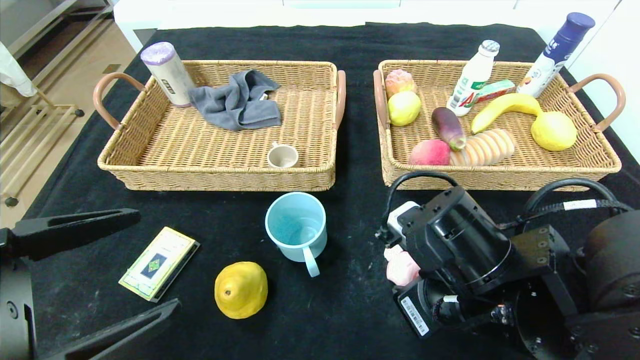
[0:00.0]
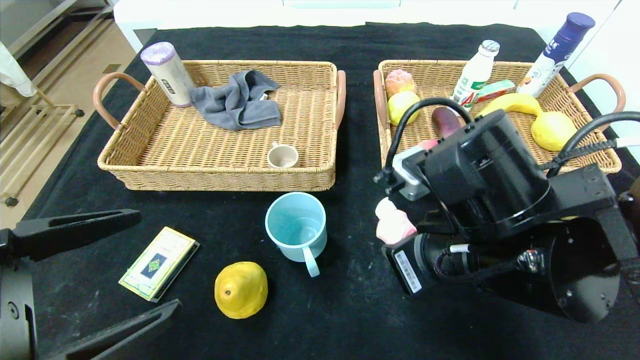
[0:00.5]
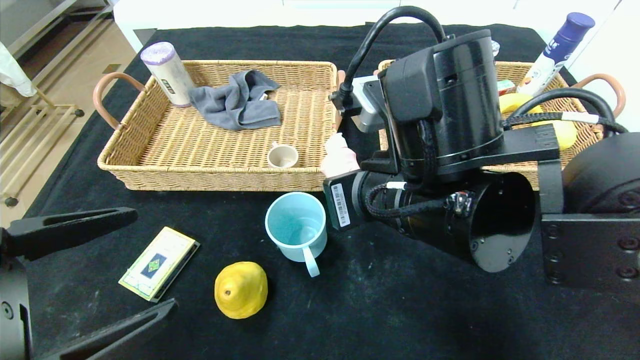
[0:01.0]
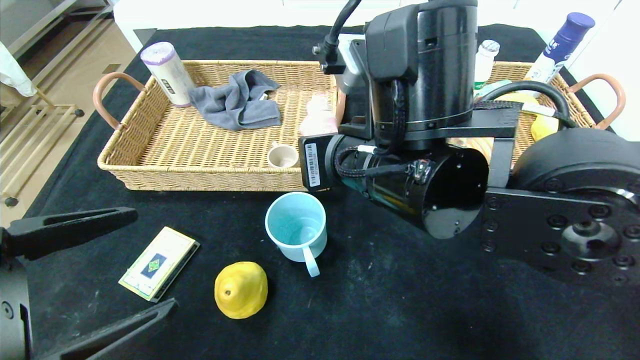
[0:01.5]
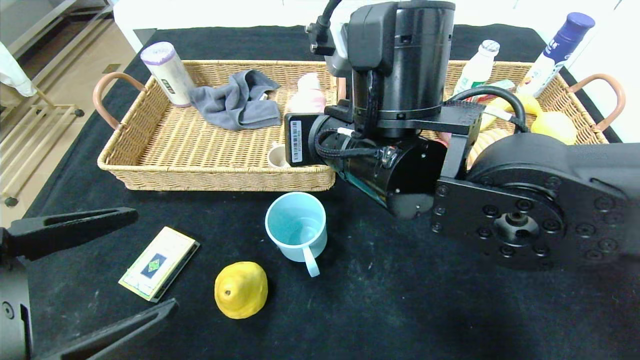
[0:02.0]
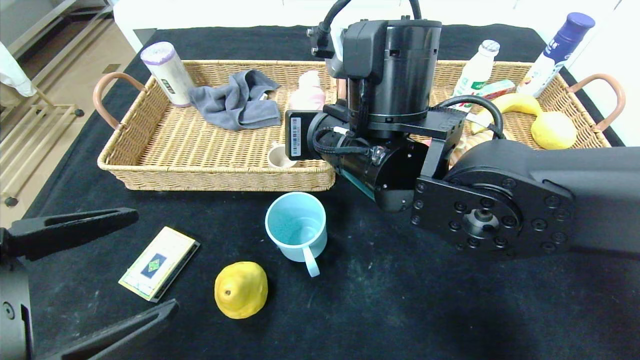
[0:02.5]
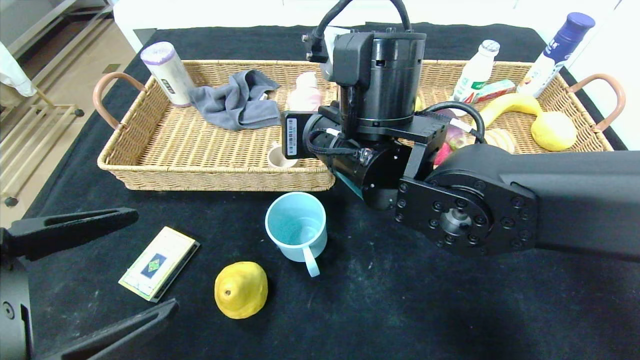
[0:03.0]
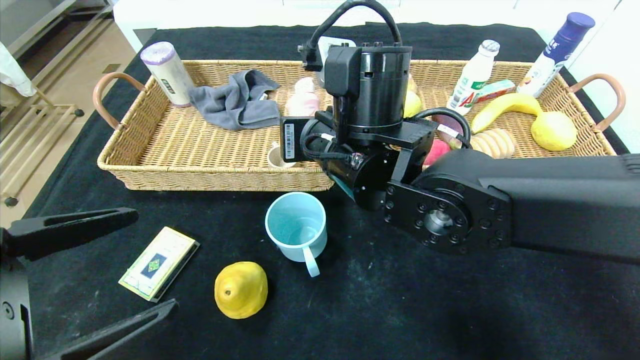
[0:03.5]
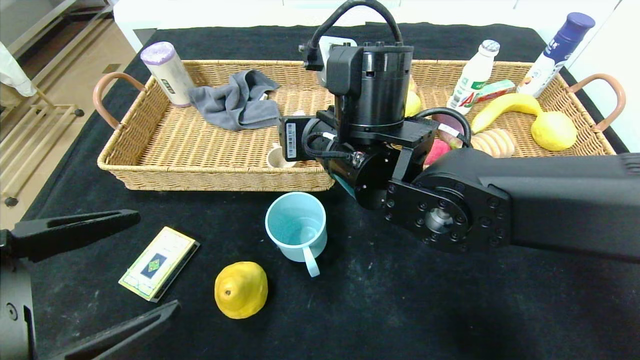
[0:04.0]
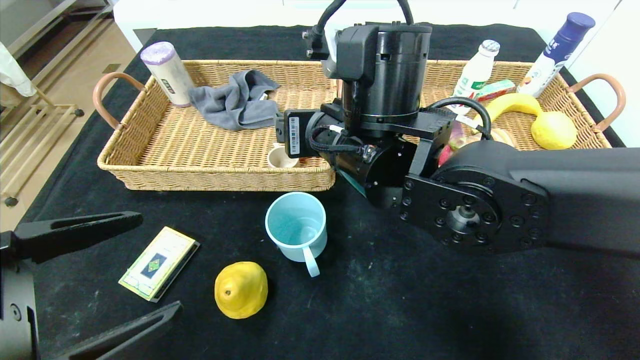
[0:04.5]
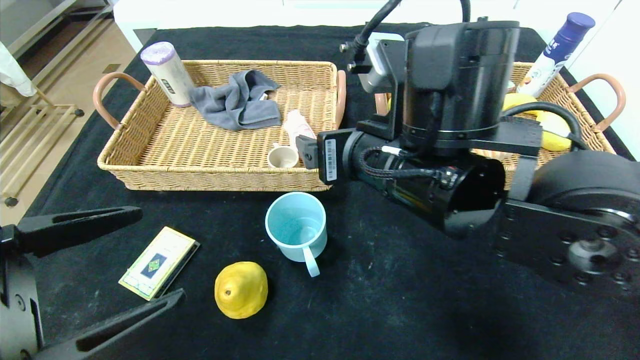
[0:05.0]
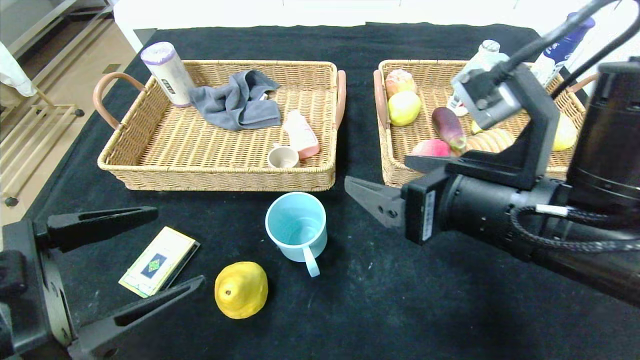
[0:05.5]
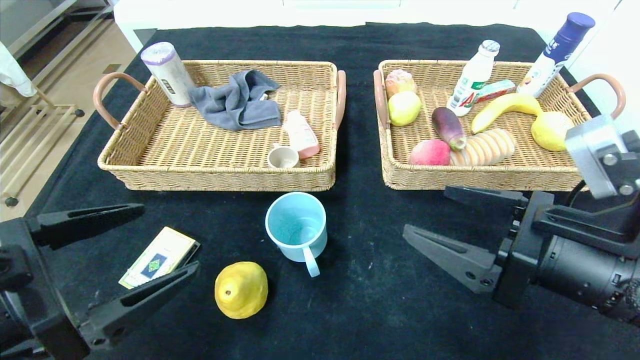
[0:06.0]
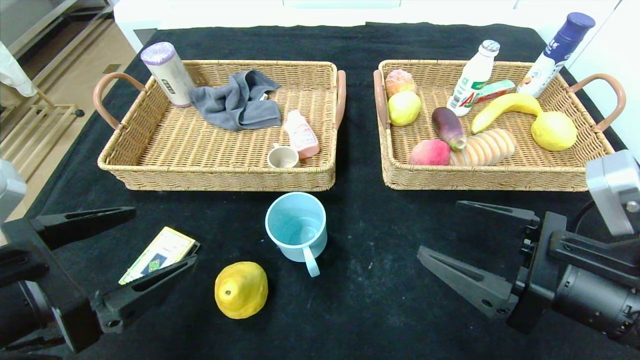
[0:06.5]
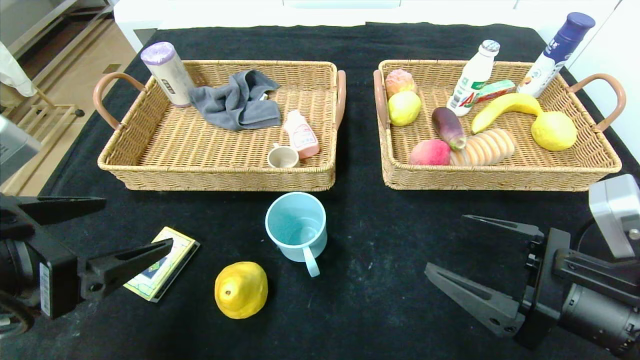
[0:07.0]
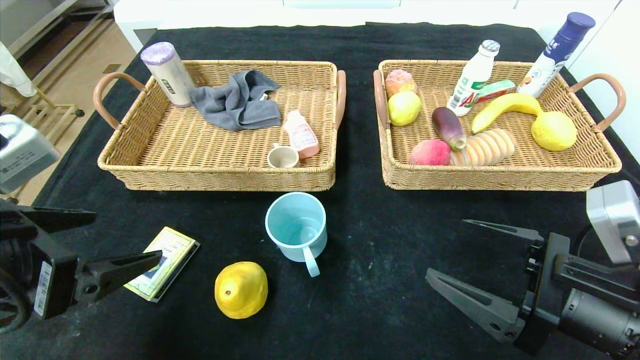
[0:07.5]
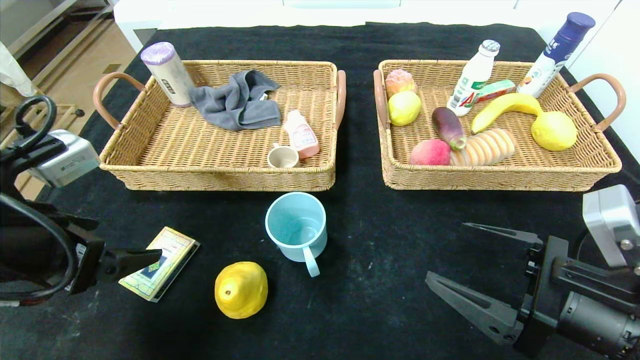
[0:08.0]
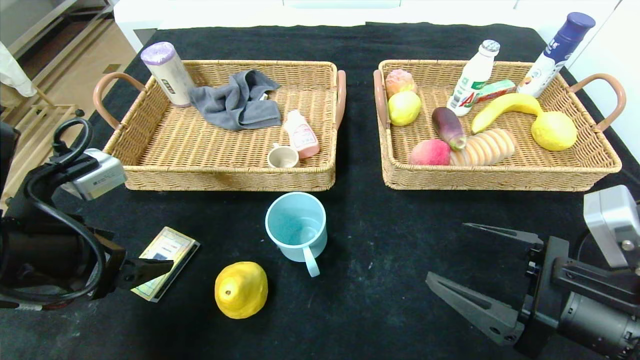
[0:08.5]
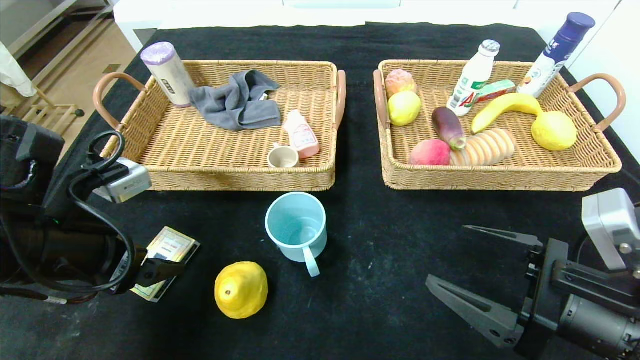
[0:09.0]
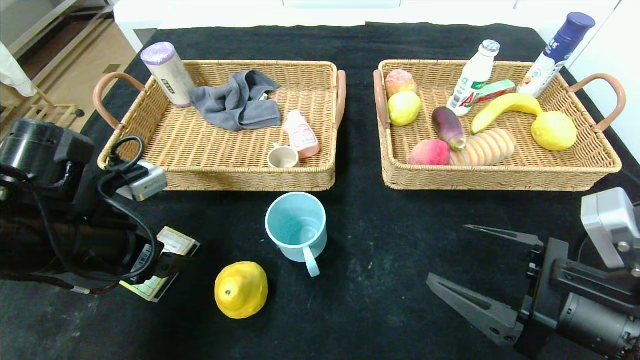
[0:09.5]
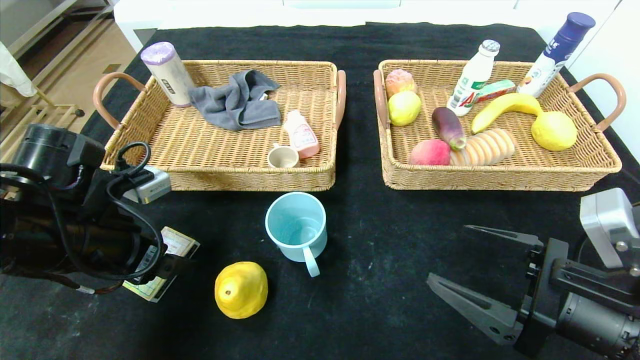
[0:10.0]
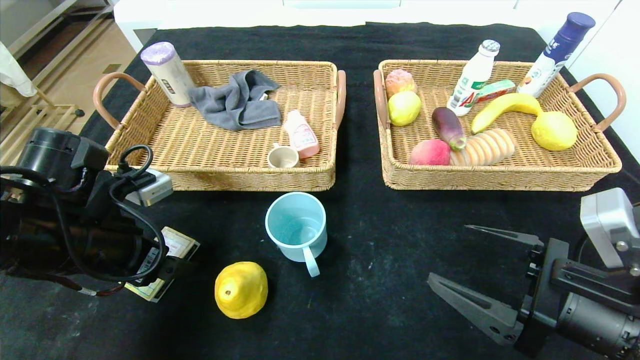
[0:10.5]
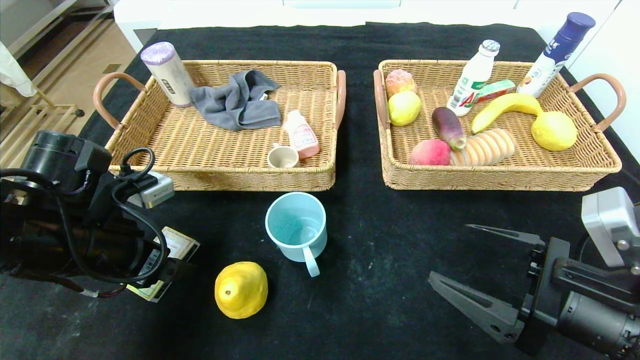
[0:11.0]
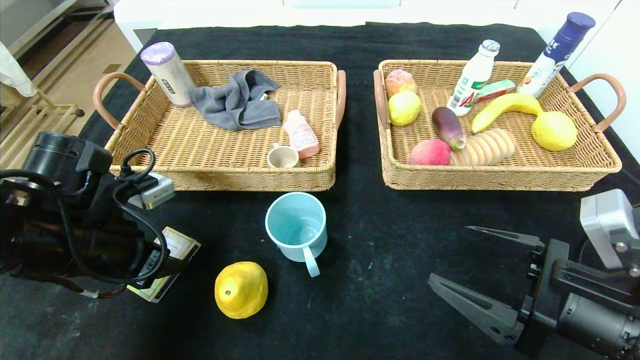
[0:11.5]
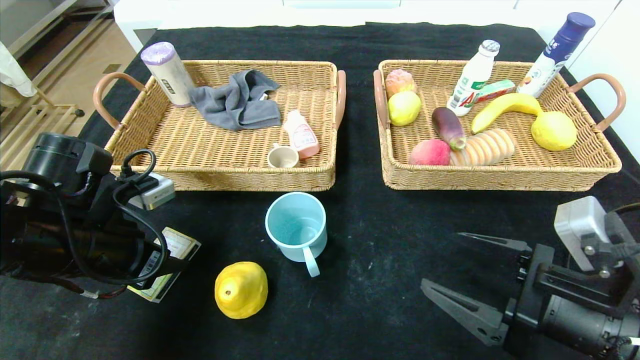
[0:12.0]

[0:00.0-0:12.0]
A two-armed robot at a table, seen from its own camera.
0:00.0 to 0:02.0: The right gripper travels upward, to the left and forward by roughly 15 cm.
0:02.0 to 0:04.0: The right gripper opens up.
0:04.0 to 0:06.0: The right gripper moves to the right and backward, about 25 cm, and opens.
0:06.0 to 0:08.0: The right gripper changes place by approximately 5 cm, while the left gripper is displaced forward by approximately 5 cm.
0:08.0 to 0:10.0: The left gripper goes some 5 cm forward.
0:10.0 to 0:12.0: The left gripper closes.

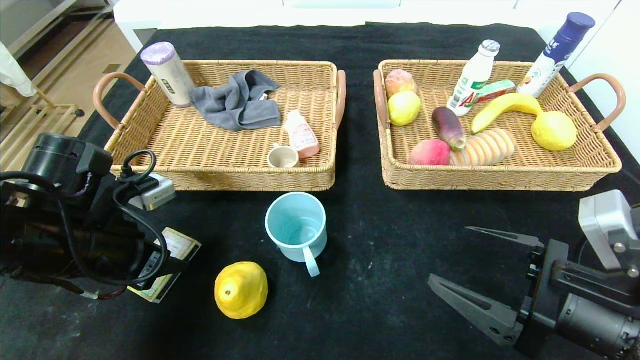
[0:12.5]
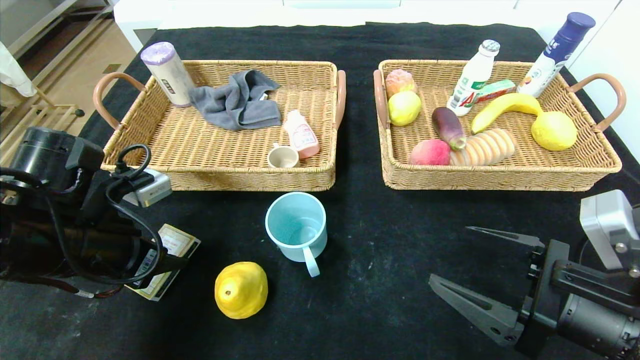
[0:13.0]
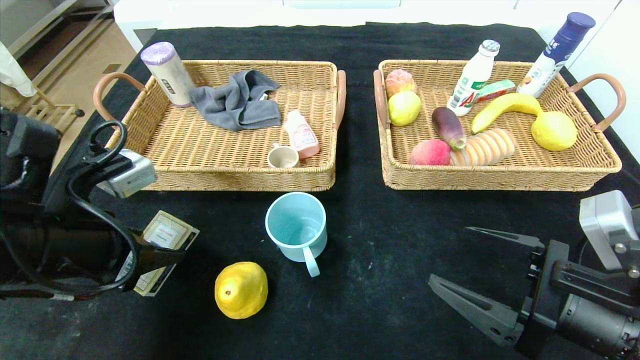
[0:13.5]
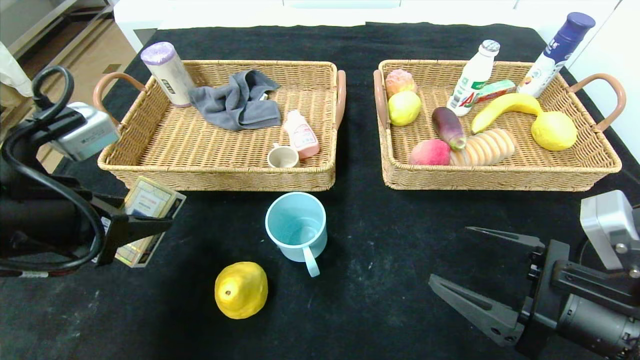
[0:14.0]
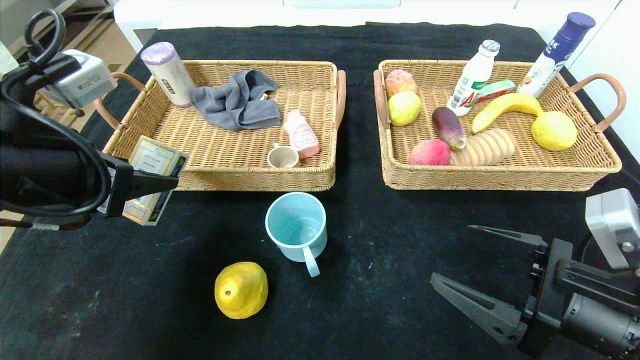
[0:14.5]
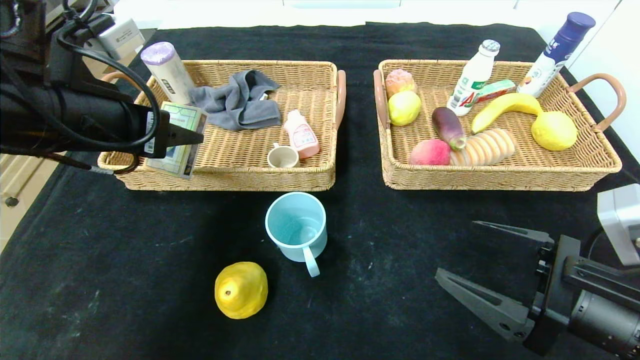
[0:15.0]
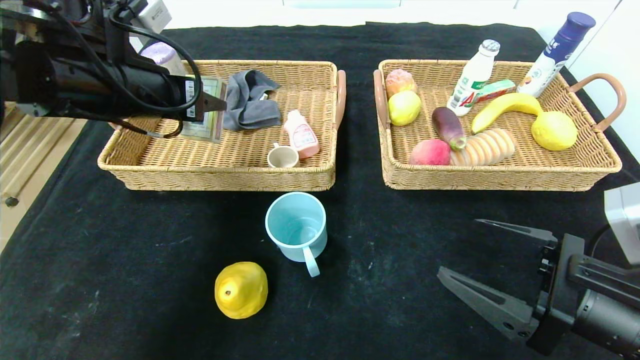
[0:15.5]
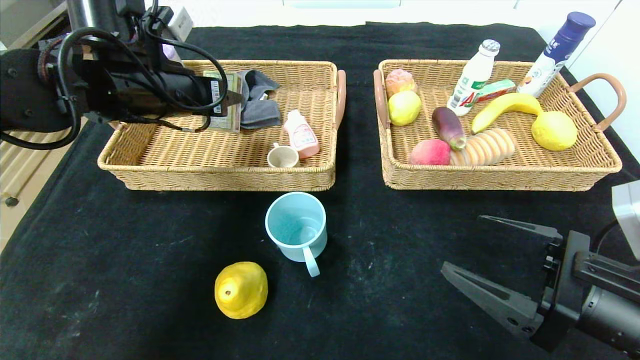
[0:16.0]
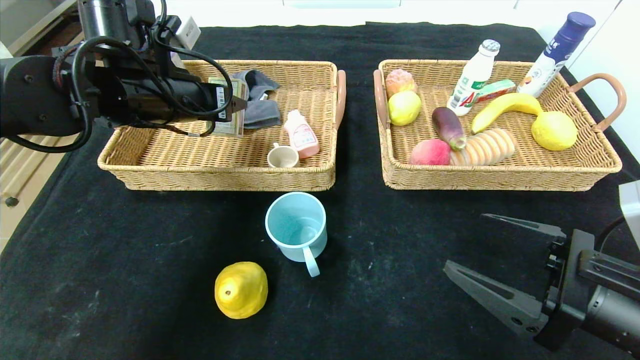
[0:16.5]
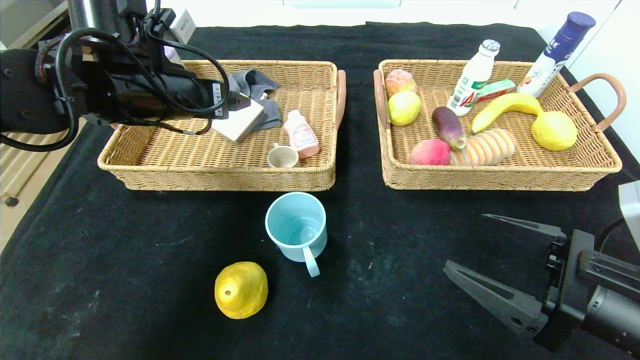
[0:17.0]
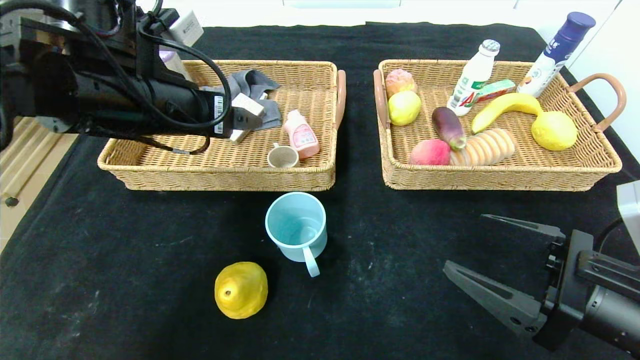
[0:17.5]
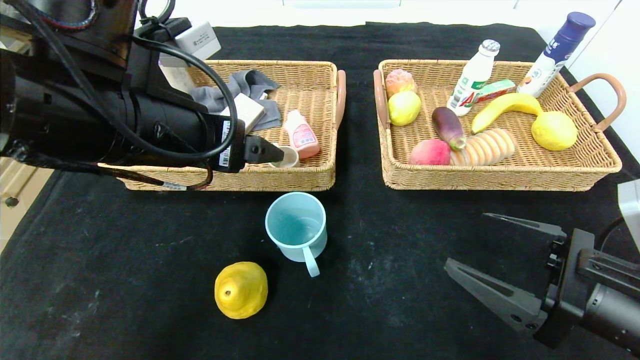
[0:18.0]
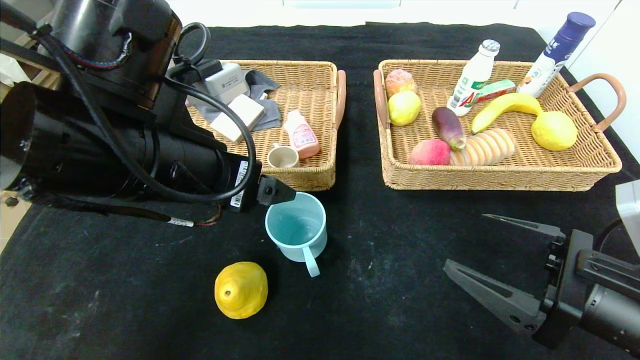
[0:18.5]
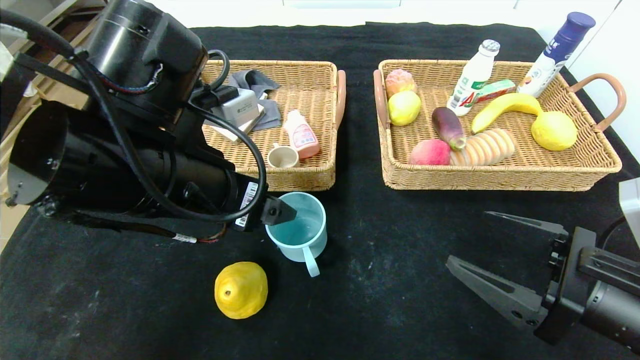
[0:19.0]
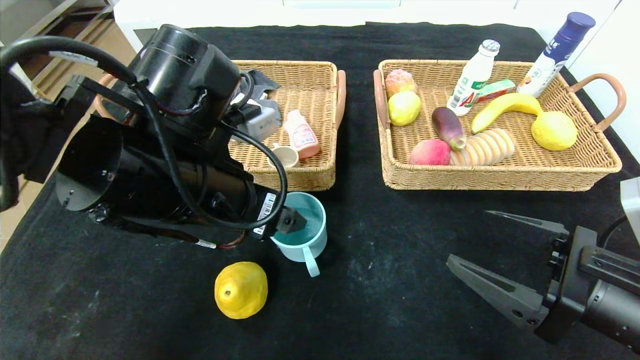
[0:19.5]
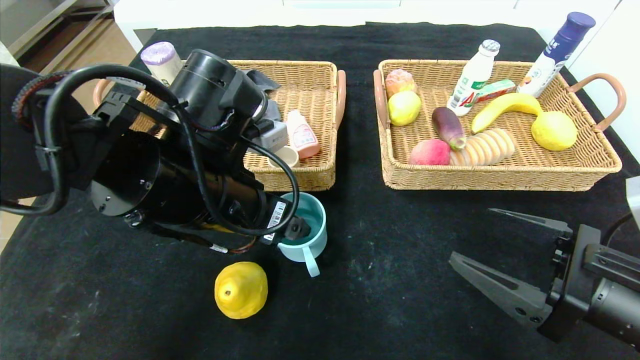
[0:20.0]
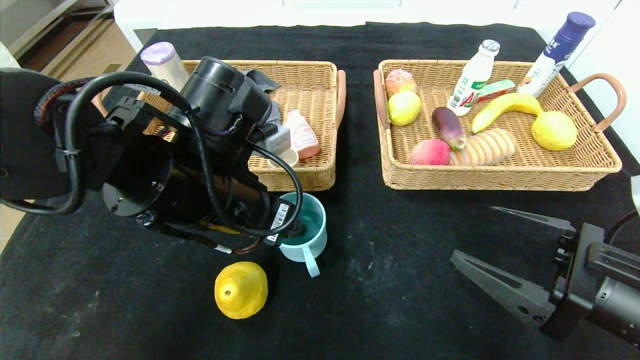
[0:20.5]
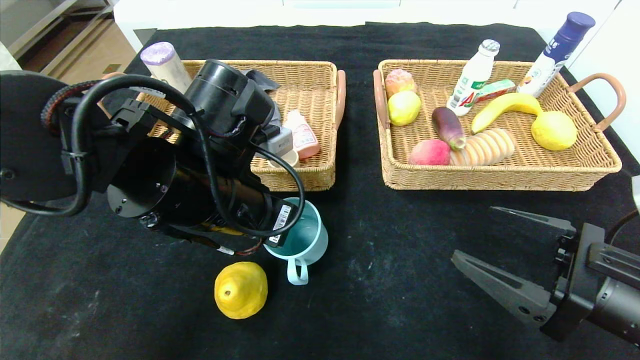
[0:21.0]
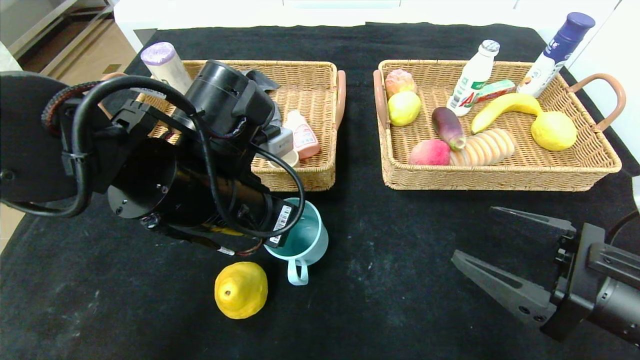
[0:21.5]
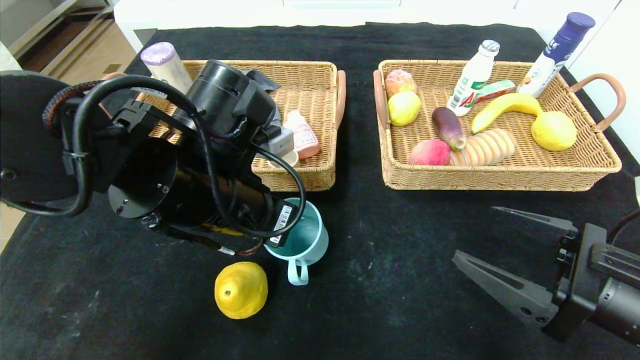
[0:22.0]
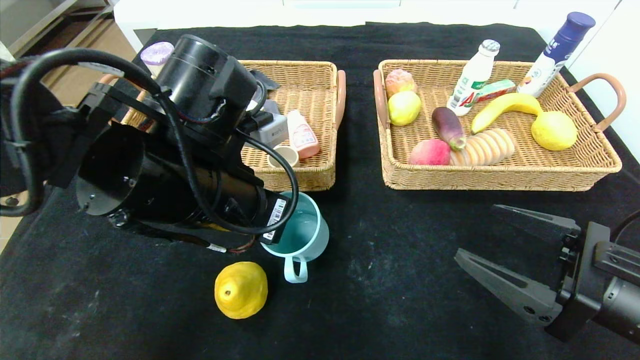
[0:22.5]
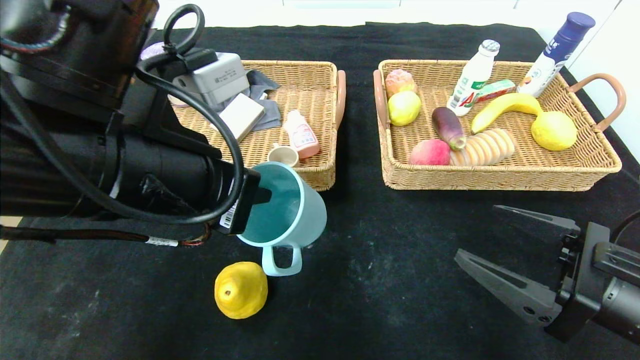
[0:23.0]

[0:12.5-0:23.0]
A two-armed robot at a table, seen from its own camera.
Step, 0:12.5 to 0:16.5: Grasp the playing cards and put it in the left basket.
0:12.5 to 0:14.5: The left gripper heads upward, covering about 10 cm.
0:14.5 to 0:16.5: The left gripper moves forward, roughly 15 cm.
0:16.5 to 0:19.0: The left gripper is displaced backward and to the right by some 15 cm.
0:19.0 to 0:21.0: The left gripper closes its fingers.
0:21.0 to 0:23.0: The left gripper is displaced backward and upward by roughly 10 cm.
